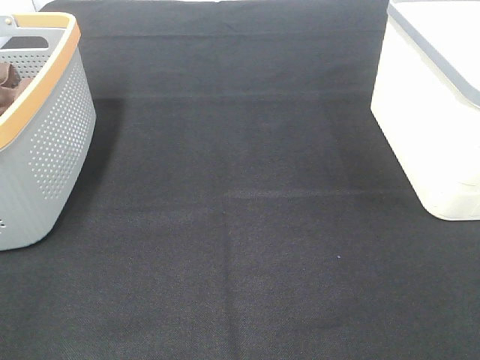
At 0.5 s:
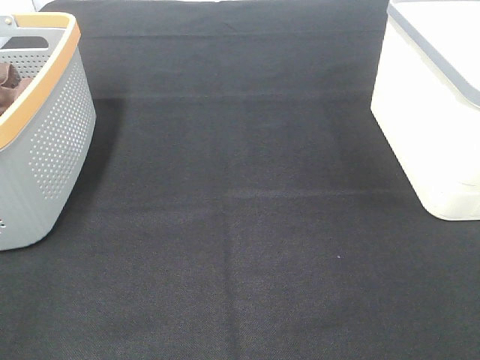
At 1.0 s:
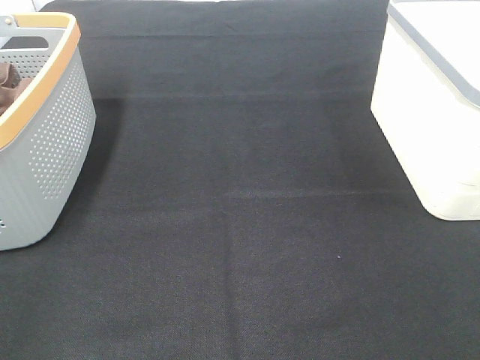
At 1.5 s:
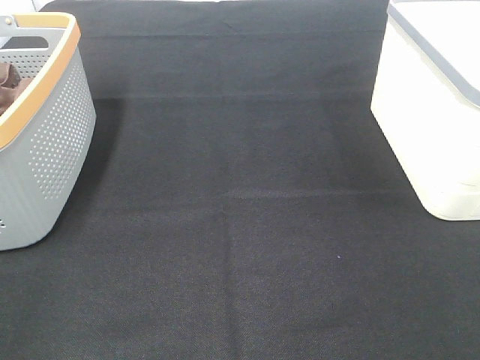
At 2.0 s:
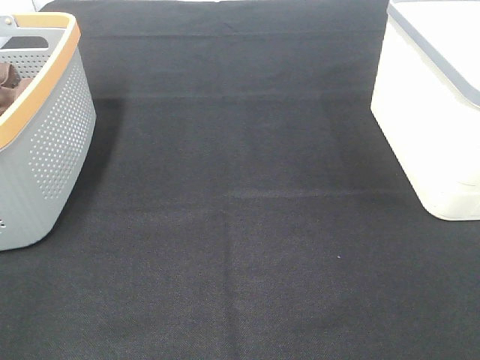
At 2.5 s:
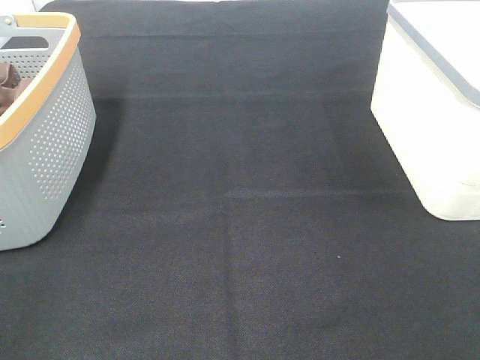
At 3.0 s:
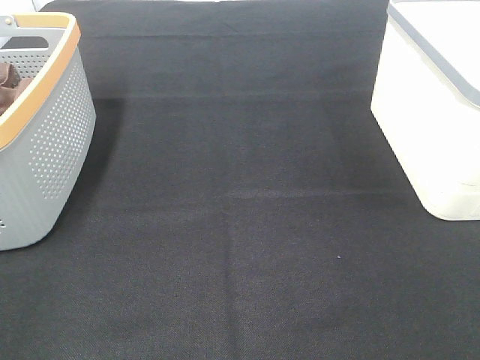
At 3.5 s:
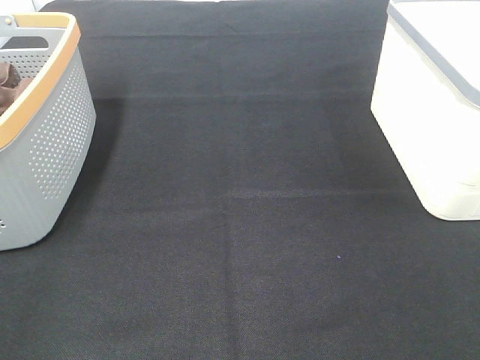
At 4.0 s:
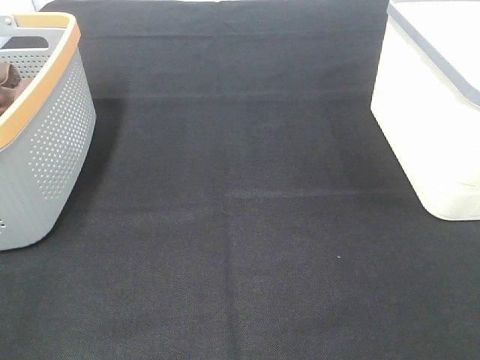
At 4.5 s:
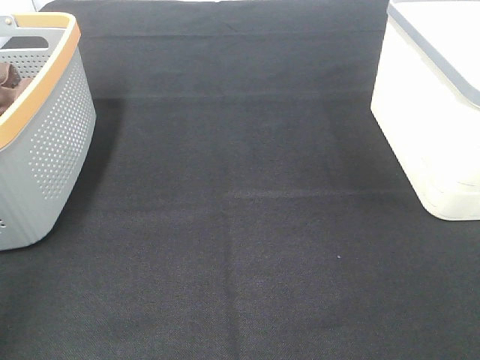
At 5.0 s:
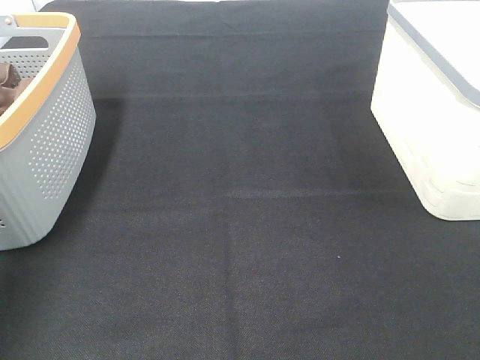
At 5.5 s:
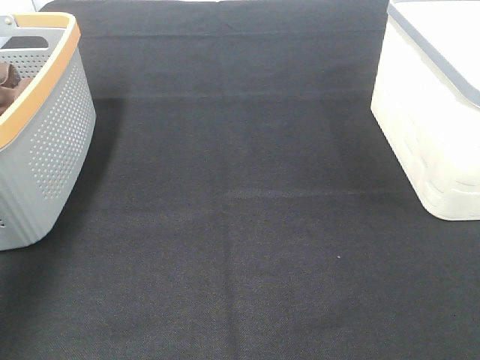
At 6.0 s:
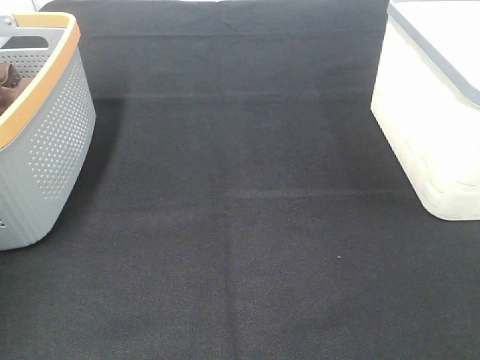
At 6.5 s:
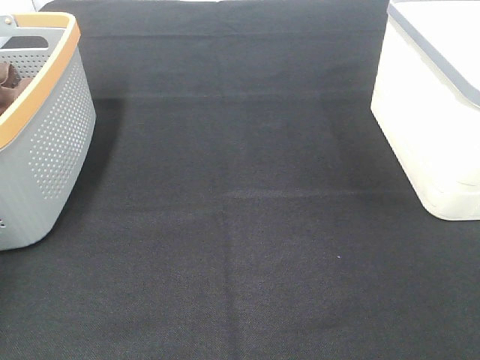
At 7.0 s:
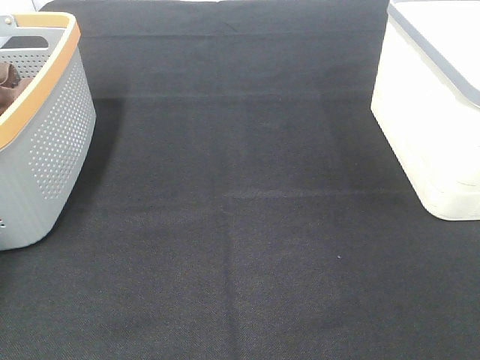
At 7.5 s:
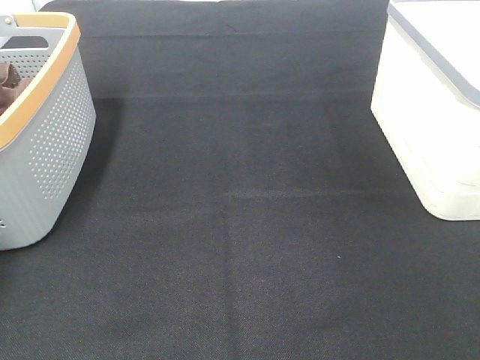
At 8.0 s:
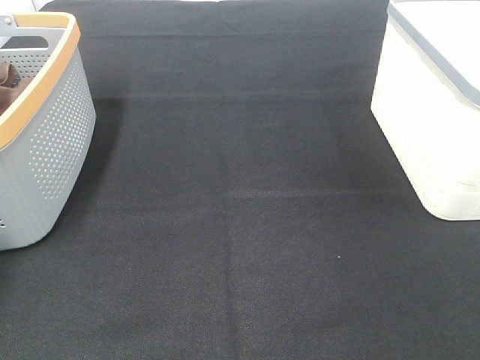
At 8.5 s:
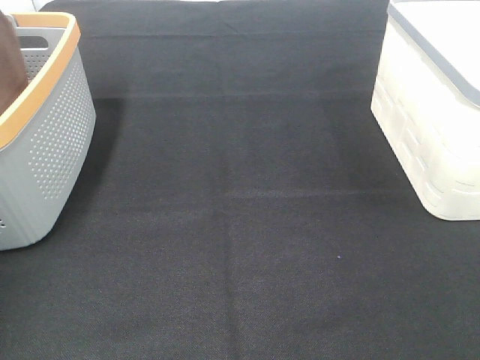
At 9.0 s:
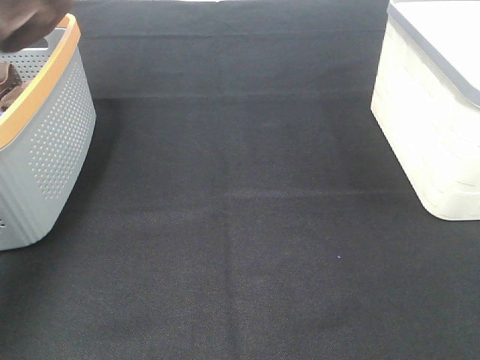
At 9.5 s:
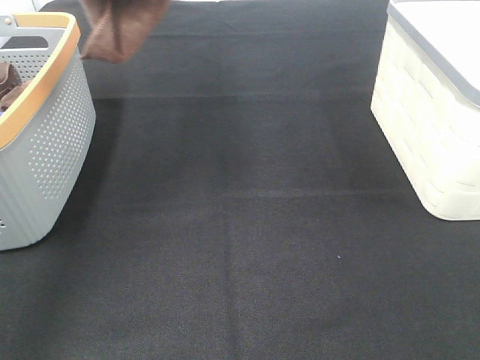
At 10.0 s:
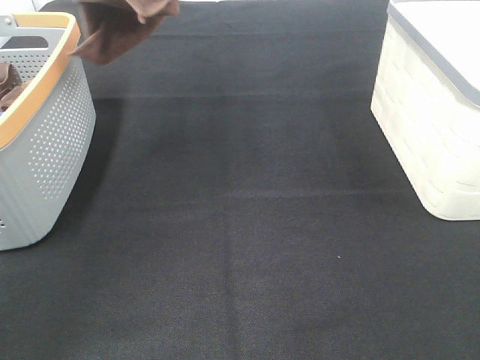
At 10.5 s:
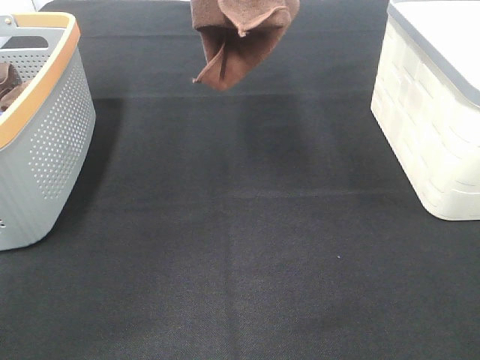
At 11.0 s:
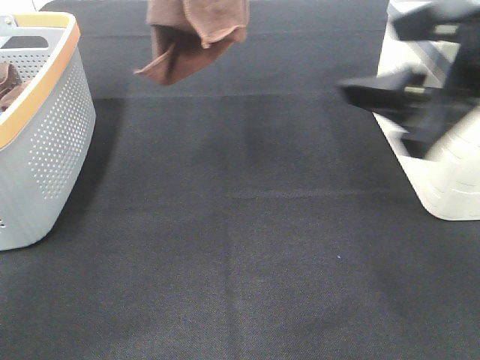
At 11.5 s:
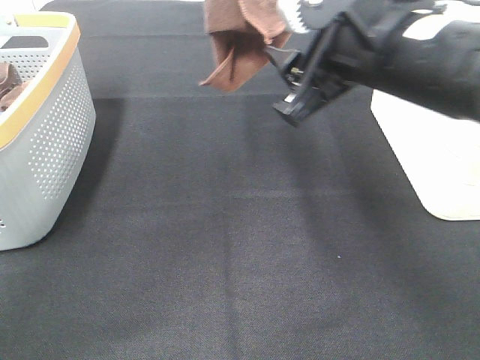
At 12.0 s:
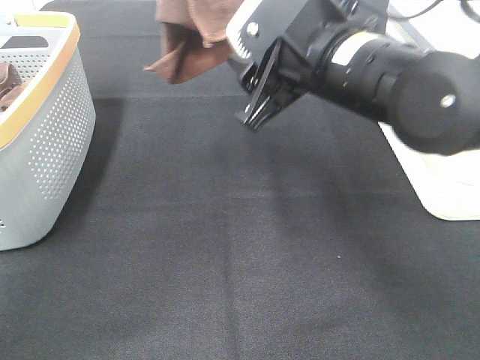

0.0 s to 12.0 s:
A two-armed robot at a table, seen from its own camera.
Task of the whole recording: Remove the towel and place it.
0.0 to 4.0 s: The two grippers keep their place.
4.0 to 6.0 s: The left gripper moves forward, roughly 40 cm.
8.0 to 10.0 s: The left gripper heads to the right and upward, covering roughly 40 cm.
10.0 to 12.0 s: The left gripper moves to the right, about 5 cm; the right gripper travels forward and to the left by approximately 30 cm.

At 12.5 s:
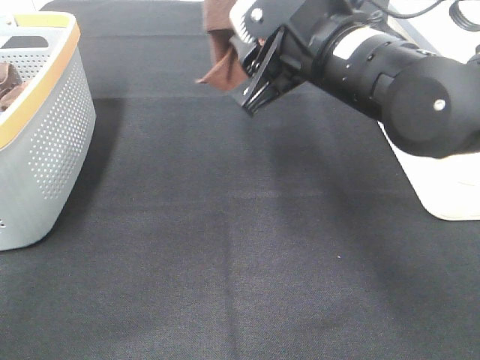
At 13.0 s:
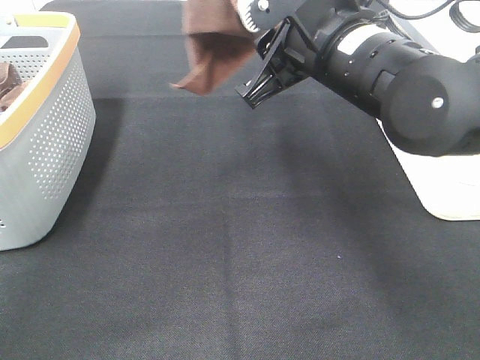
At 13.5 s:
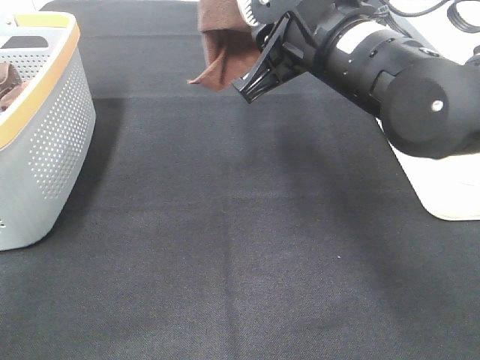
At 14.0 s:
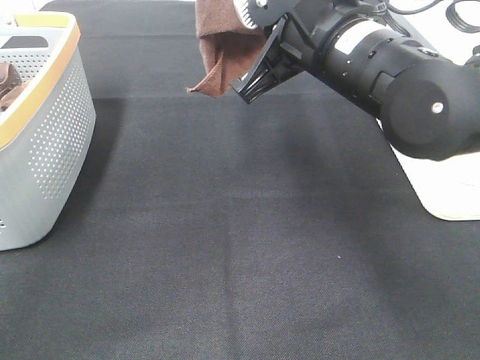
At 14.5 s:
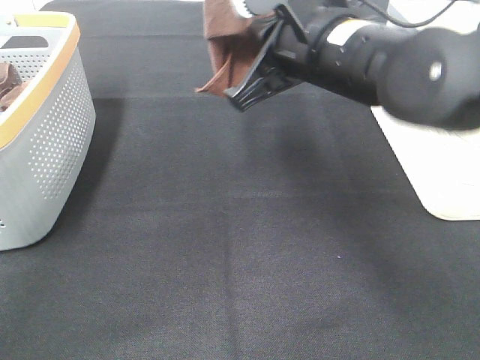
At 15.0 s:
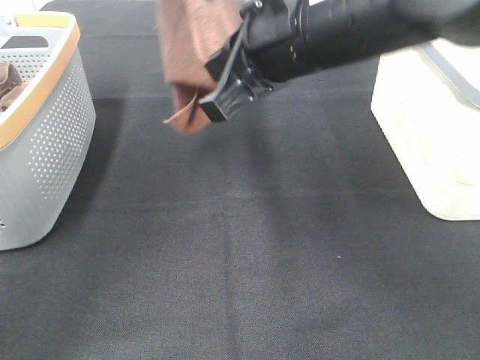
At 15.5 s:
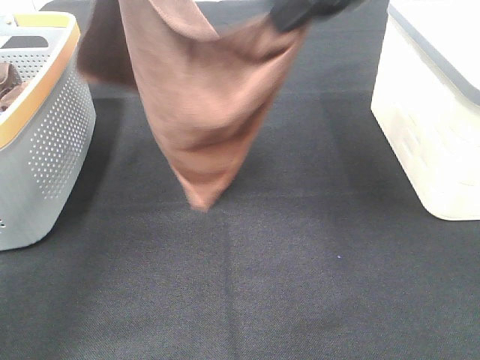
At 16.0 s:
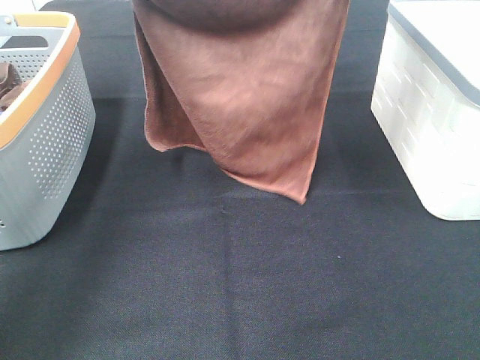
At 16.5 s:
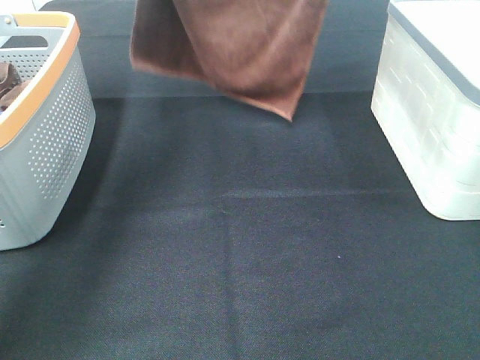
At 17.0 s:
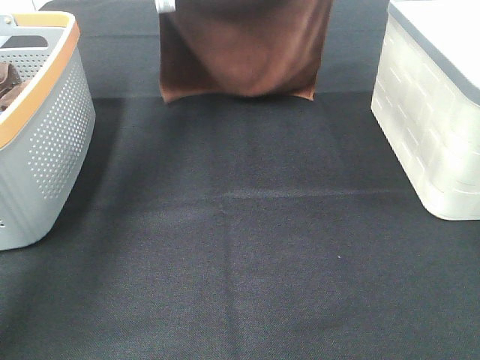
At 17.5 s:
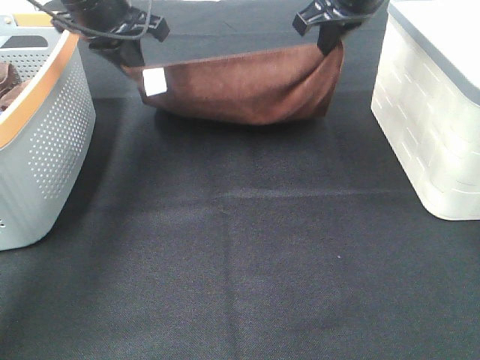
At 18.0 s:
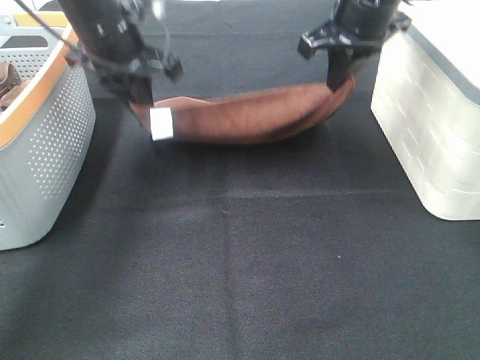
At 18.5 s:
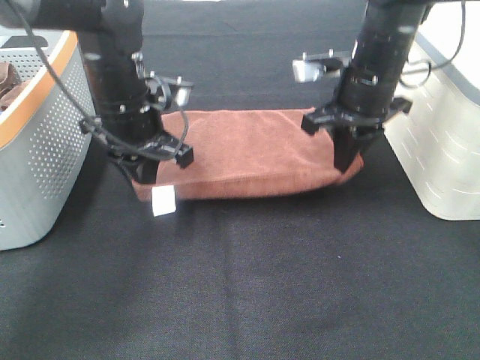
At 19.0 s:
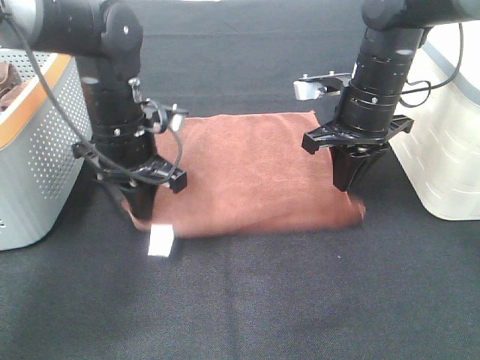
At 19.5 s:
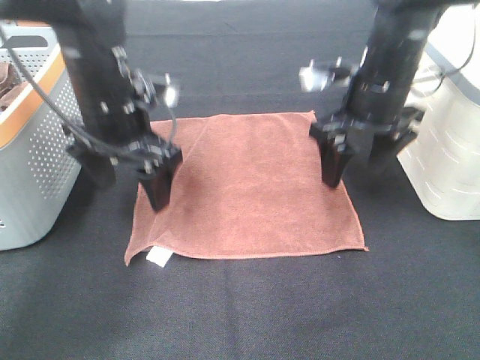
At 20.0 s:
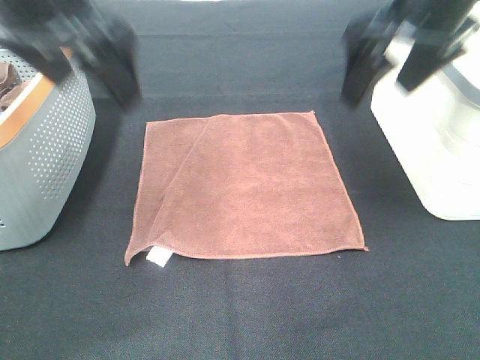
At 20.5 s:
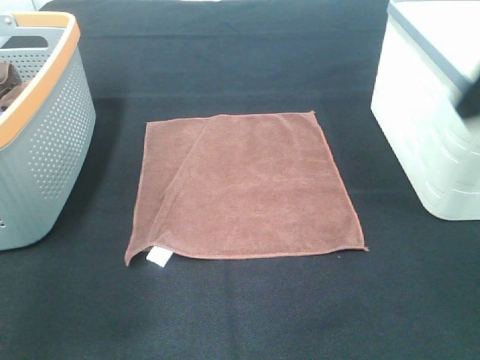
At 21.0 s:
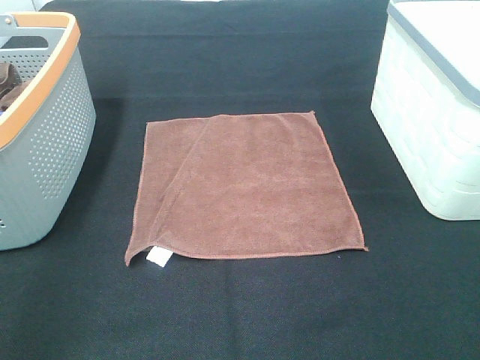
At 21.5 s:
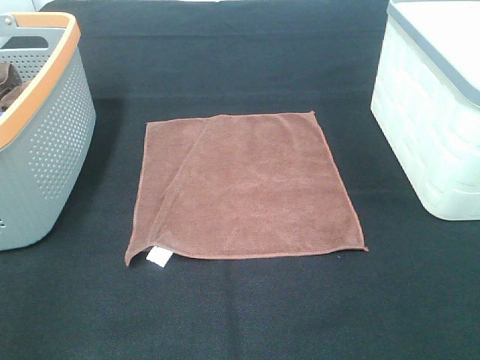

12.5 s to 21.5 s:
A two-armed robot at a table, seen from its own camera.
Task of the whole recording: Remove the towel and place it.
Step, 13.5 to 15.0 s: Left hand: spread the brown towel flat on the table.
Step, 13.5 to 15.0 s: Right hand: spread the brown towel flat on the table.
12.5 to 14.5 s: The right gripper closes.
14.5 to 17.0 s: The right gripper is displaced forward by about 20 cm. Meanwhile the left gripper travels downward, forward and to the left by about 25 cm.
17.0 to 19.5 s: The right gripper heads downward and backward, covering approximately 15 cm, and opens its fingers; the left gripper moves backward and downward, roughly 20 cm, and opens.
19.5 to 21.5 s: The right gripper travels backward by approximately 35 cm; the left gripper shifts roughly 40 cm backward and to the left.

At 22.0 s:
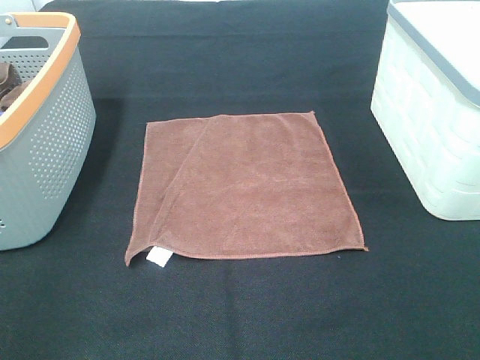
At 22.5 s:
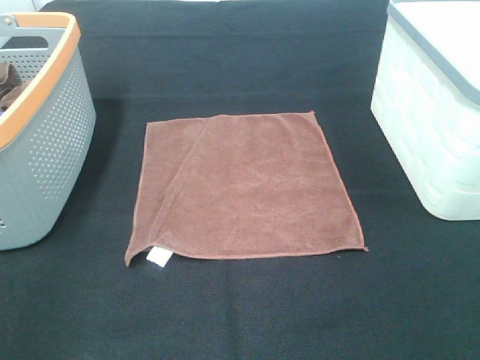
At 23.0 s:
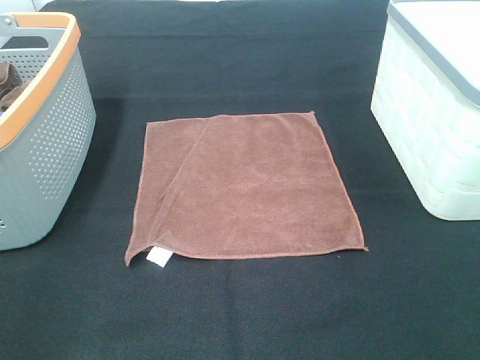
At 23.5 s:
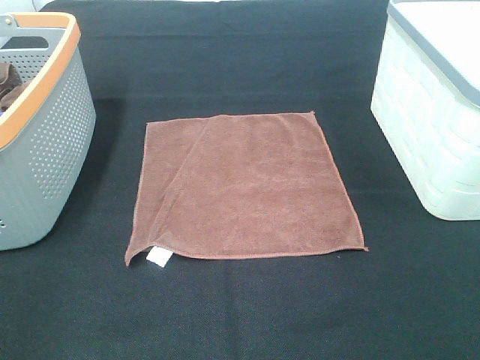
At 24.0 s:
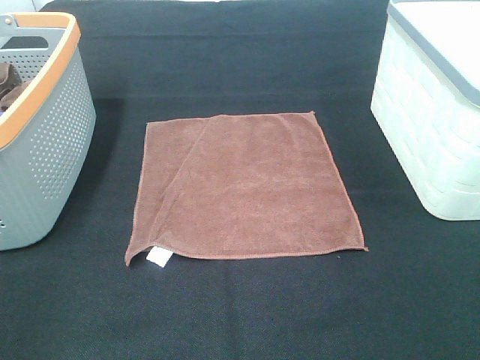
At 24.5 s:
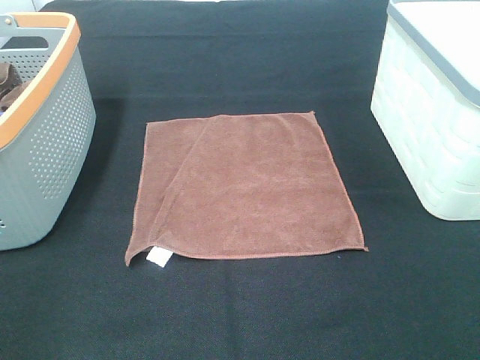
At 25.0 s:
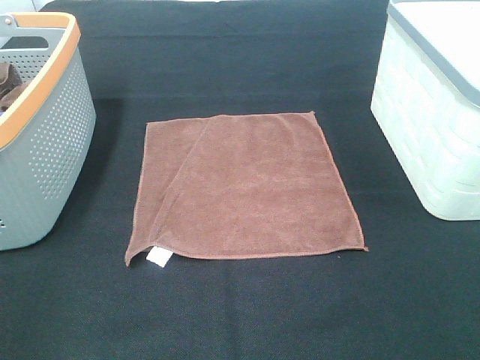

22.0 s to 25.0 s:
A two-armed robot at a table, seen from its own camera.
Task of the whole recording: Remove the towel and place it.
23.5 to 25.0 s: Neither gripper changes place.

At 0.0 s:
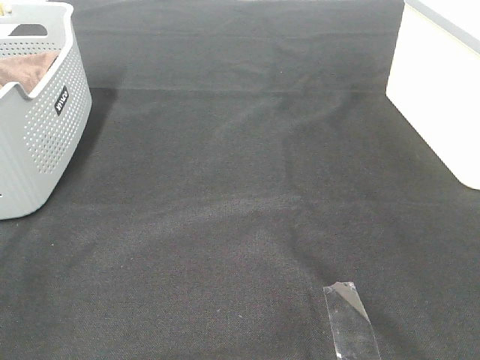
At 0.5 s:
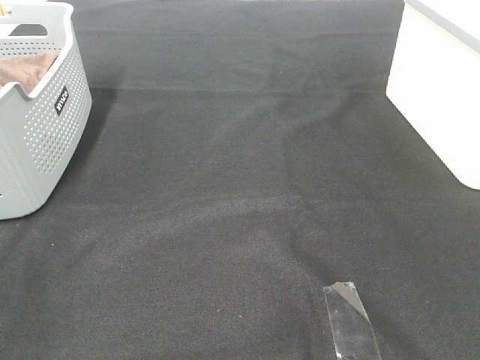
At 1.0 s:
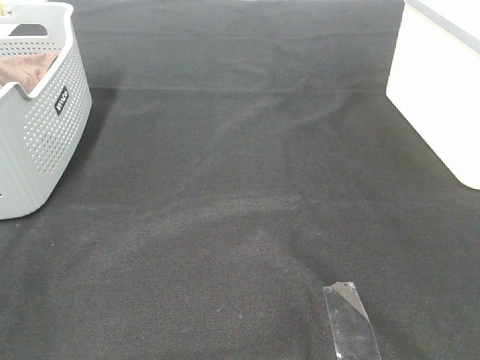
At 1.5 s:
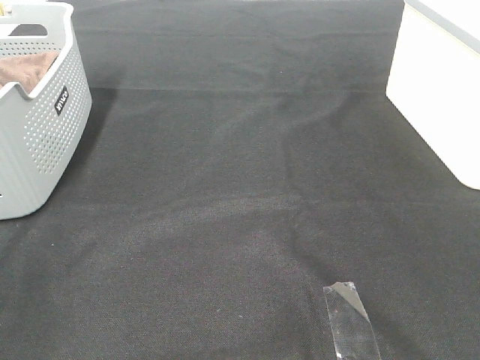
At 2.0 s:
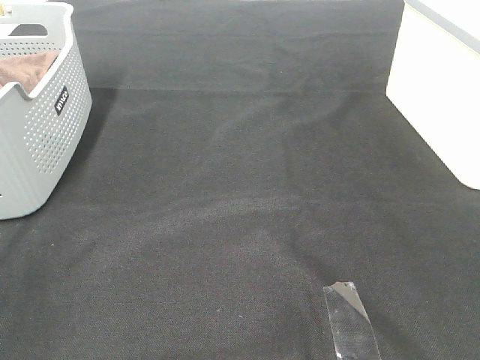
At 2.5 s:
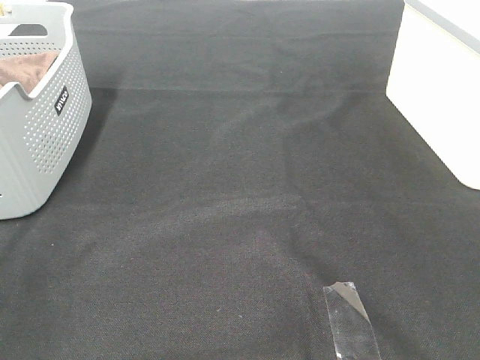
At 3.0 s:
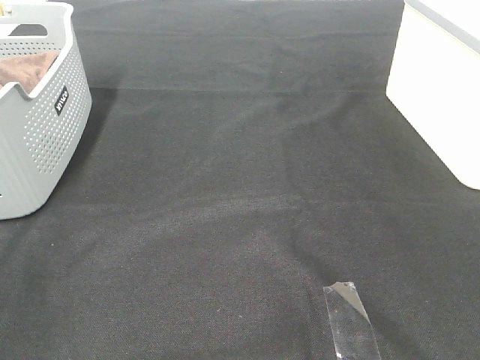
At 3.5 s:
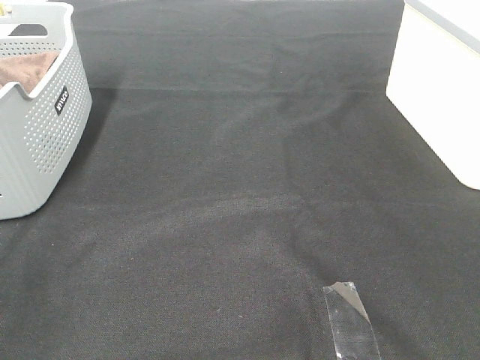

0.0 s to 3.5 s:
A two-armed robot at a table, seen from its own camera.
Task of the whole recording: Remove the towel and place it.
0.0 to 3.5 s: The two grippers keep their place.
